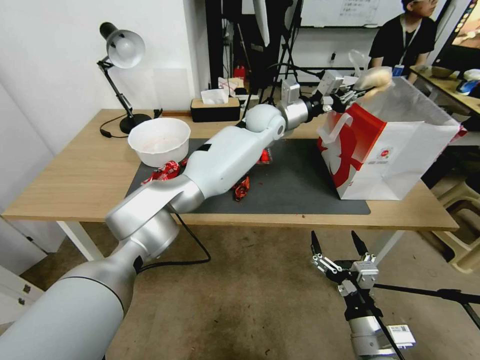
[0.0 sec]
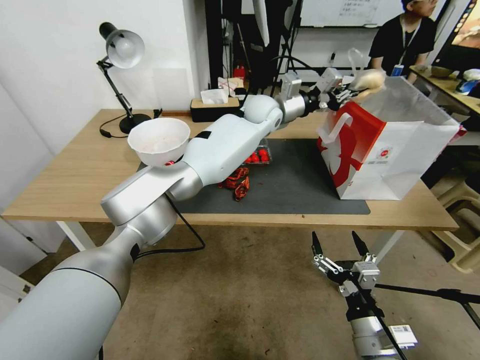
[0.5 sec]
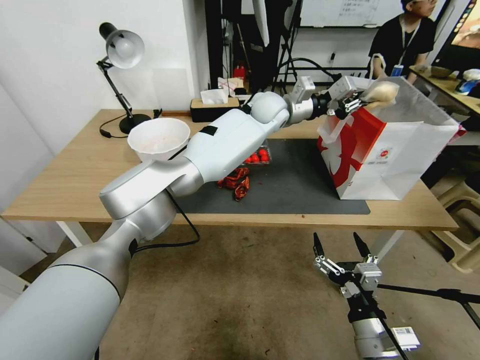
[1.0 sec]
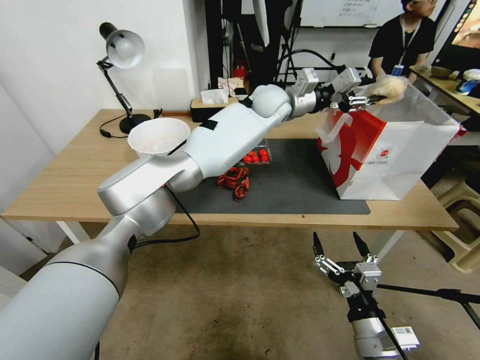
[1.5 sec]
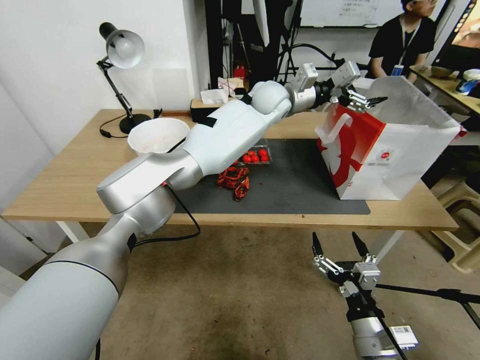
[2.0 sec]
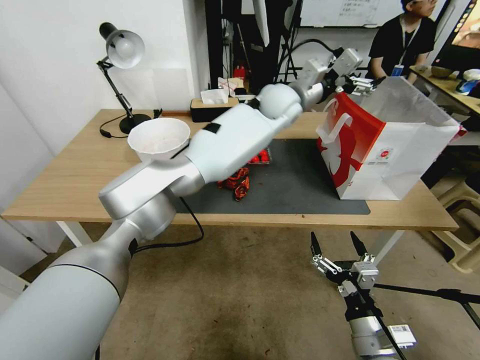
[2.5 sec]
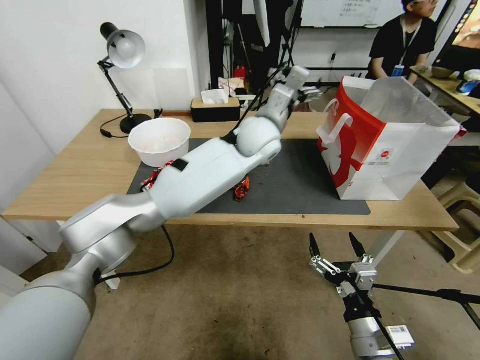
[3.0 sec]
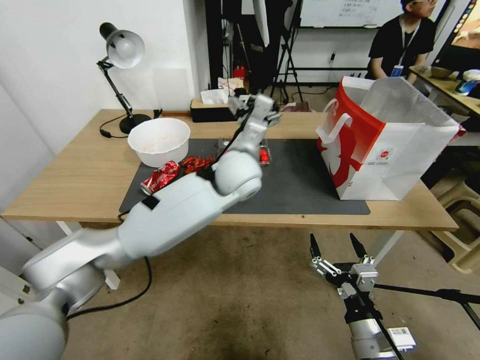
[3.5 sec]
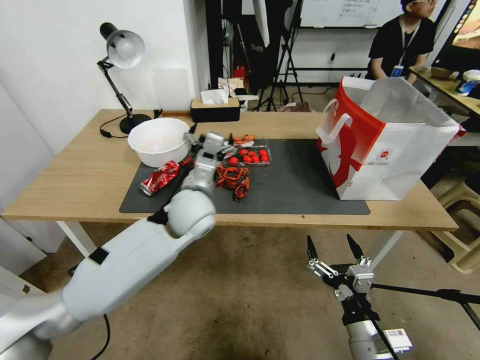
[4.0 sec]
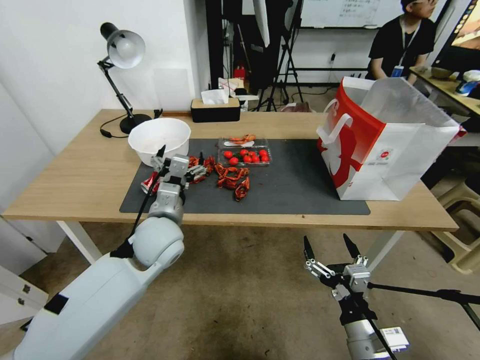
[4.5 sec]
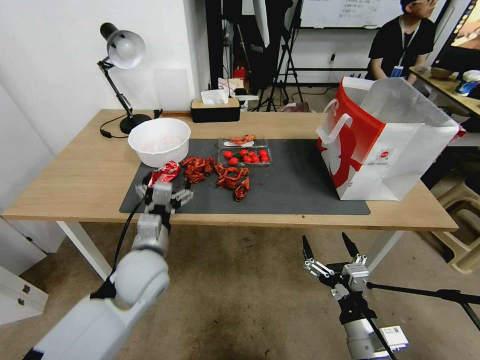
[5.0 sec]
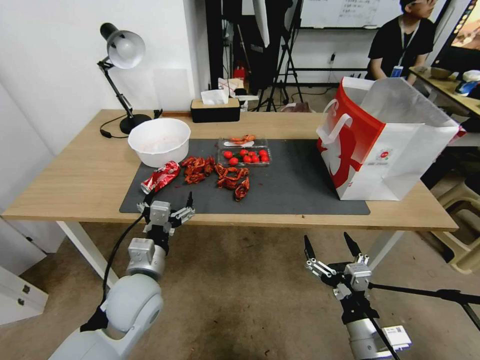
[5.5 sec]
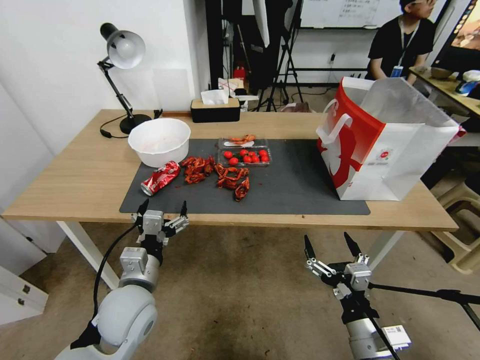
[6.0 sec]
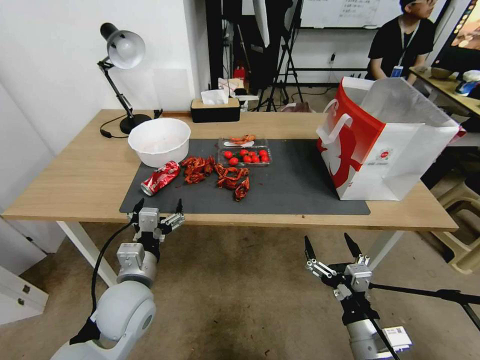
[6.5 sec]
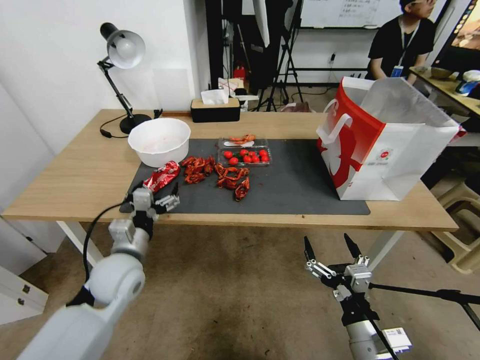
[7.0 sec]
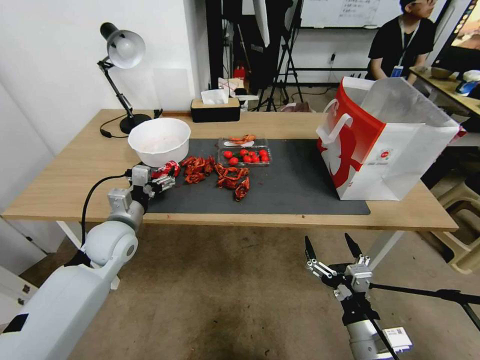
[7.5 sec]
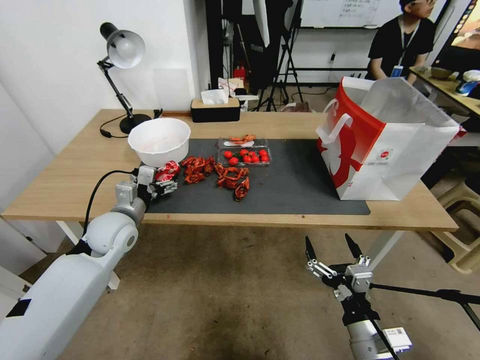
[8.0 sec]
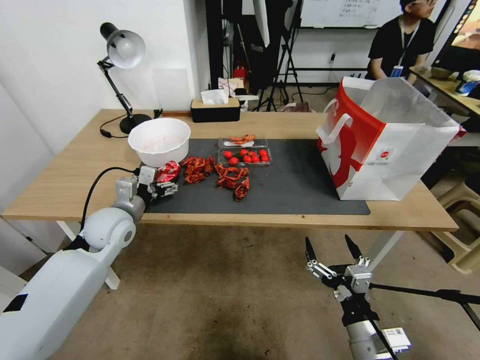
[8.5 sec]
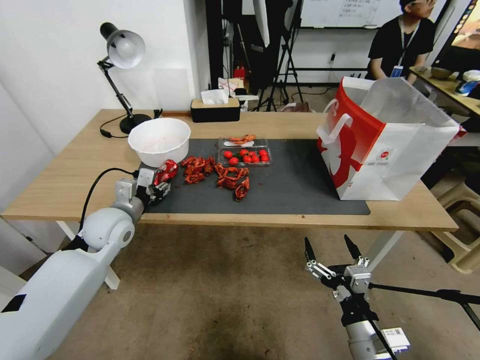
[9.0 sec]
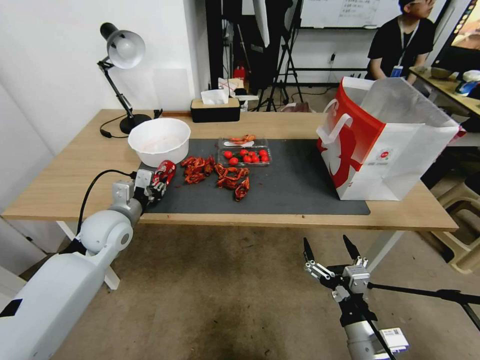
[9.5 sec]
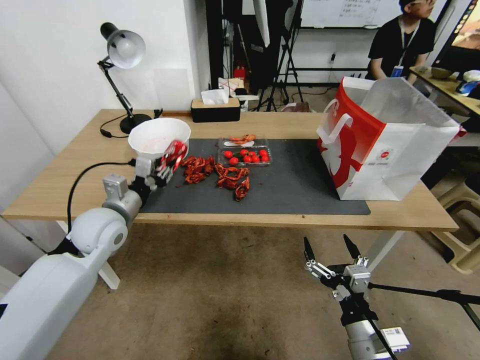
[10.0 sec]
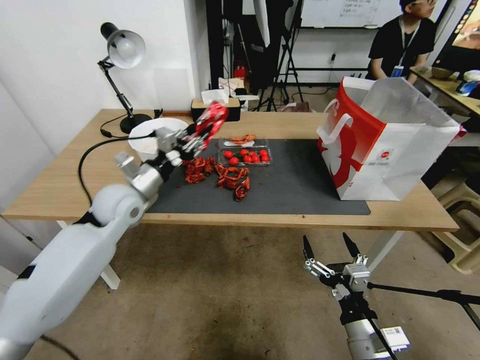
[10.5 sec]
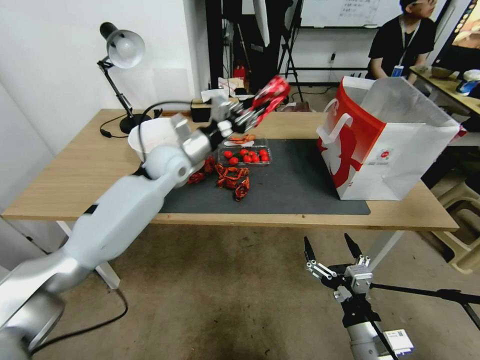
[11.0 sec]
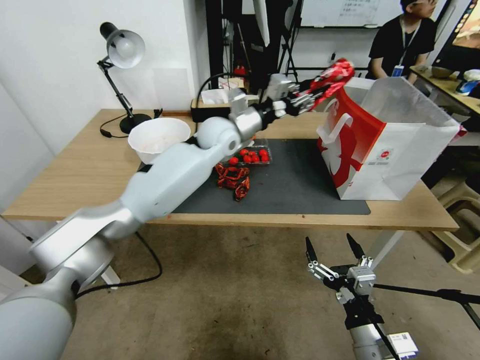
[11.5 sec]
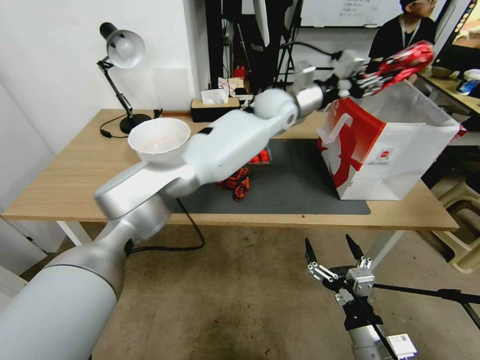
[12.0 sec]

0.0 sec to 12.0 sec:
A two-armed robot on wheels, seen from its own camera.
0.0 sec to 2.0 sec: The left gripper moves upward, about 5 cm, and opens.
2.0 sec to 4.0 sec: The left gripper heads backward, to the left and downward, covering some 30 cm.
4.0 sec to 6.0 sec: The left gripper moves backward, to the left and downward, about 20 cm.
6.0 sec to 8.0 sec: The left gripper goes about 15 cm forward and to the left.
8.0 sec to 10.0 sec: The left gripper closes.
10.0 sec to 12.0 sec: The left gripper is displaced to the right, forward and upward by roughly 50 cm.

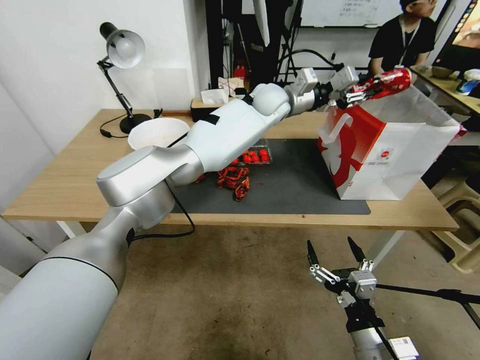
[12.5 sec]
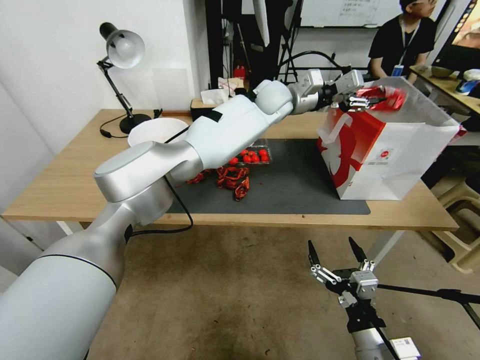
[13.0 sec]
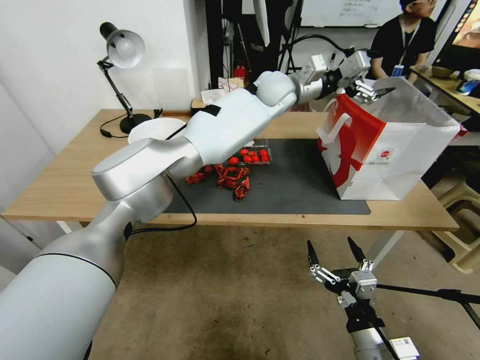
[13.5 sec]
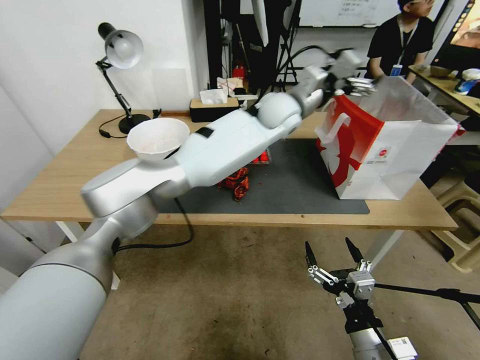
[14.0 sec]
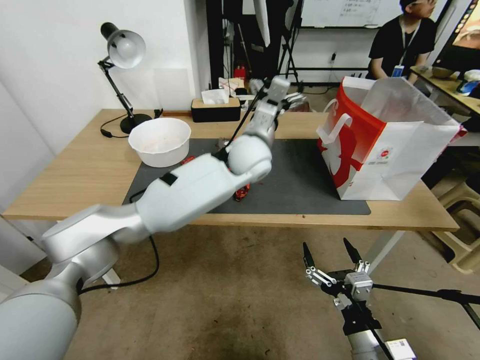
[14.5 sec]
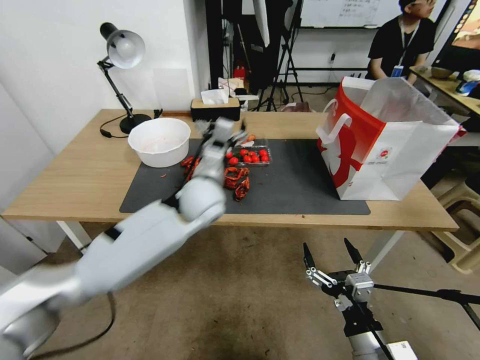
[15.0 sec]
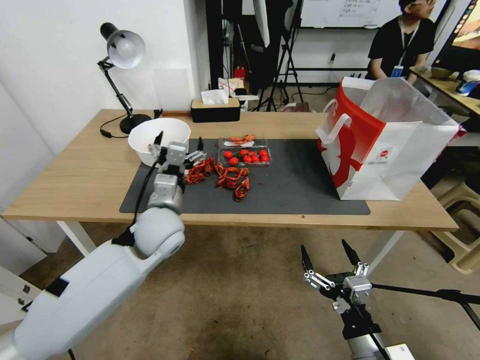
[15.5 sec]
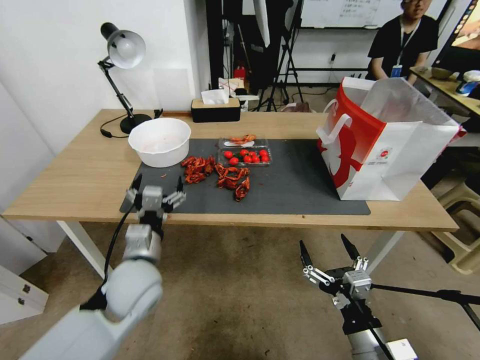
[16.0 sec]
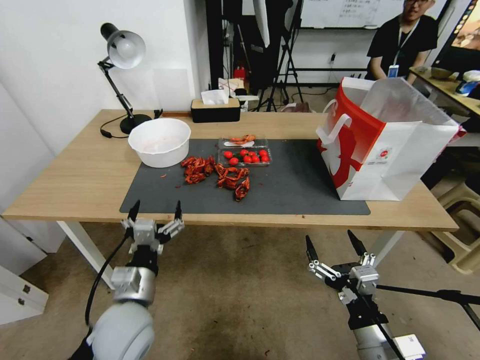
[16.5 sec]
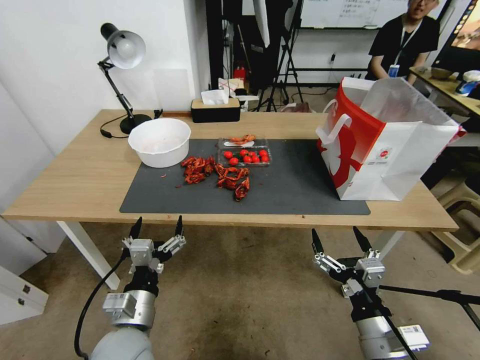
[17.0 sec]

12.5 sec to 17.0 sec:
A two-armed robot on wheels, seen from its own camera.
12.5 sec to 14.5 sec: The left gripper goes roughly 5 cm backward, and opens its fingers.
14.5 sec to 17.0 sec: The left gripper moves backward, to the left and downward, approximately 50 cm.
